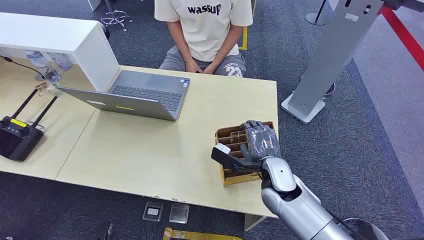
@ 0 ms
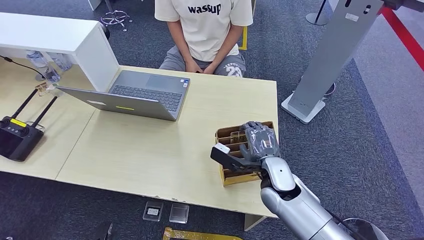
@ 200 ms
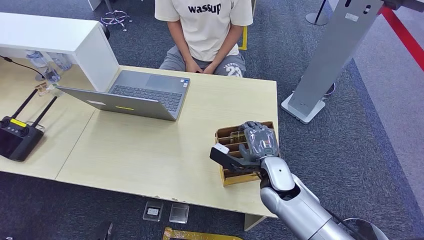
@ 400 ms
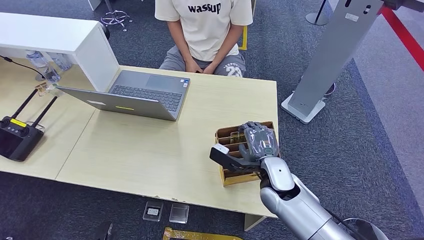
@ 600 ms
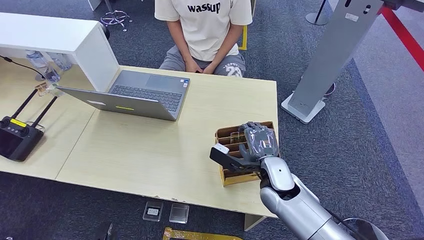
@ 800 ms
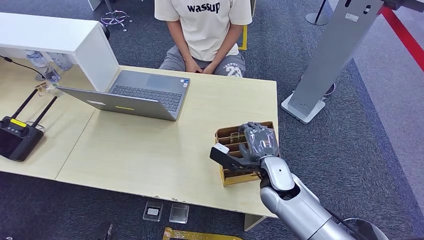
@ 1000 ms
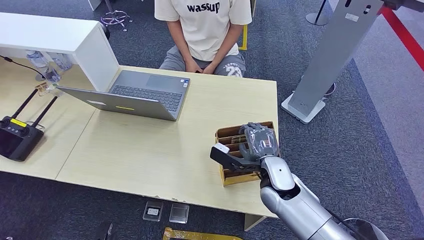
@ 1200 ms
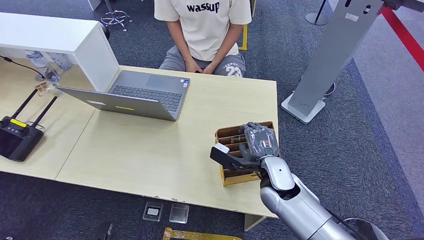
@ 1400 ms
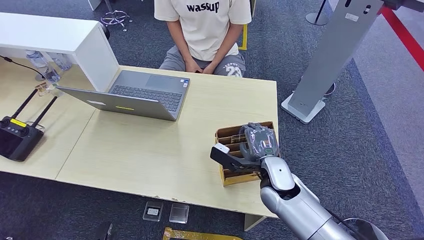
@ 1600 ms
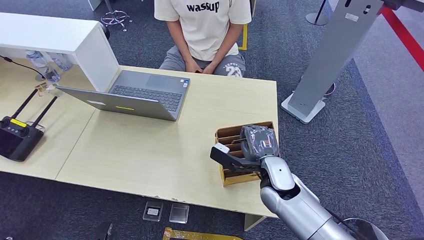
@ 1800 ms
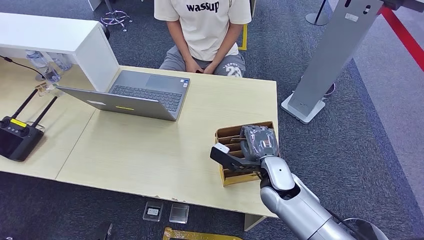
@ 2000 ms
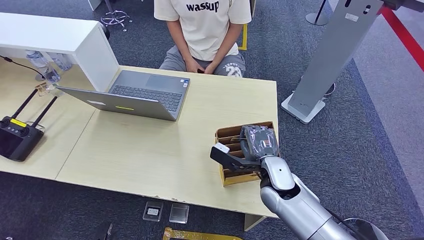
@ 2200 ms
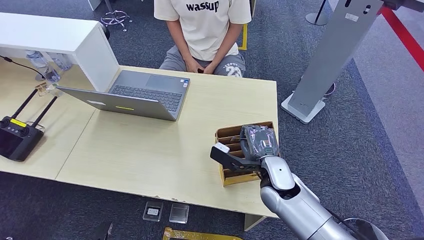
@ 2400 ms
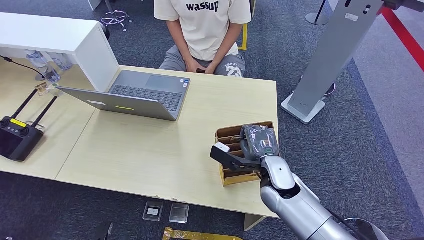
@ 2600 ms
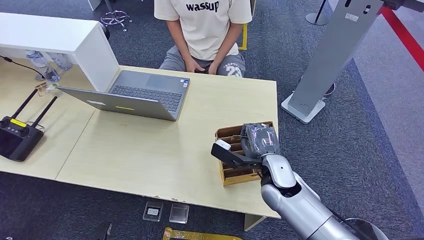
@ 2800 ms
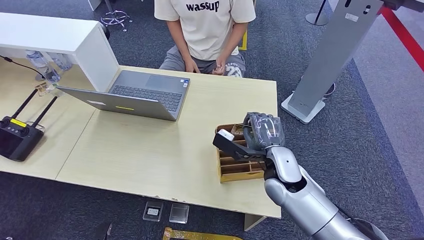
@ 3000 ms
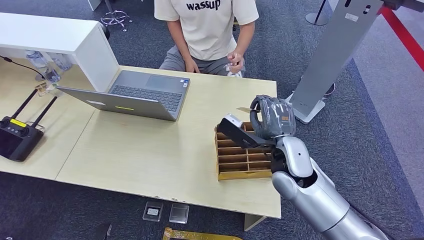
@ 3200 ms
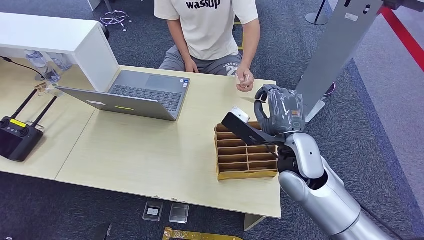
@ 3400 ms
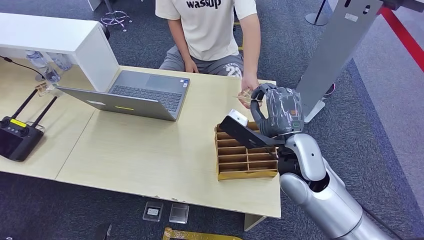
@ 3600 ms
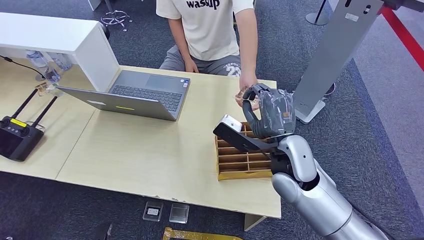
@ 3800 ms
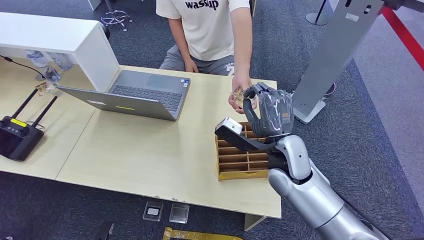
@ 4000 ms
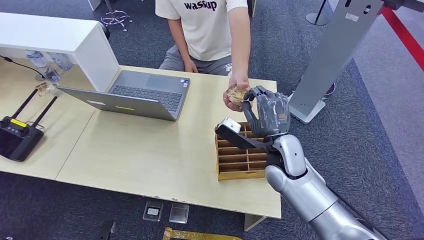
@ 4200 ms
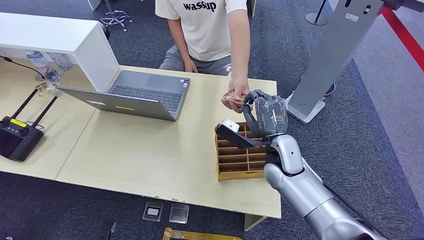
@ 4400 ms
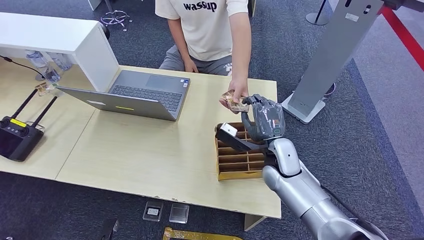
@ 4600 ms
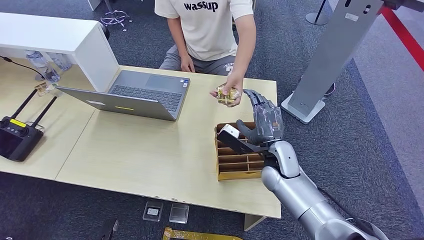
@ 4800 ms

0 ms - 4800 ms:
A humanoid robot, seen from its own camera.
Step, 0 ms - 2800 ms: Pick up the room card from the card holder.
Step, 3600 ms - 4800 ms: Hand the room card to the target.
1600 ms - 3200 ms: The right hand heads upward, covering about 10 cm.
3200 ms - 4800 ms: The right hand shifts about 5 cm downward.
